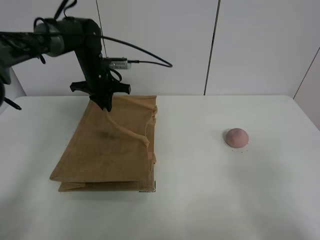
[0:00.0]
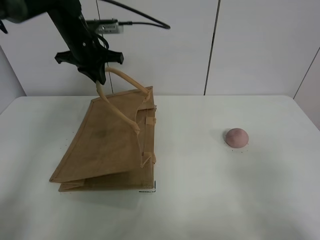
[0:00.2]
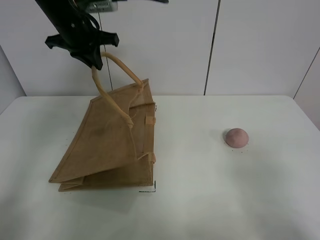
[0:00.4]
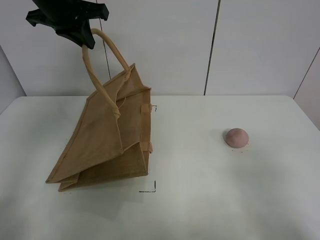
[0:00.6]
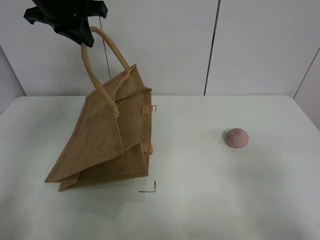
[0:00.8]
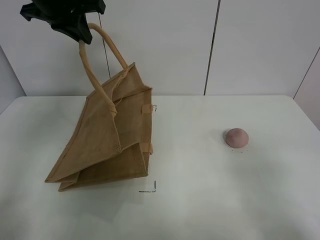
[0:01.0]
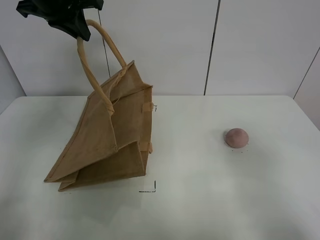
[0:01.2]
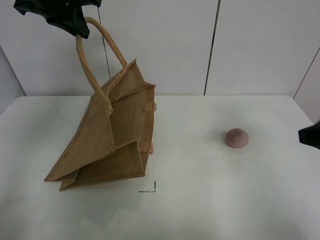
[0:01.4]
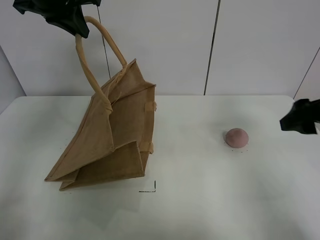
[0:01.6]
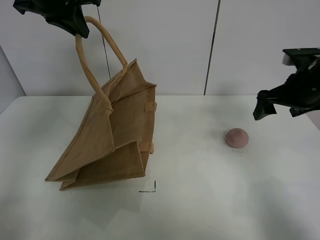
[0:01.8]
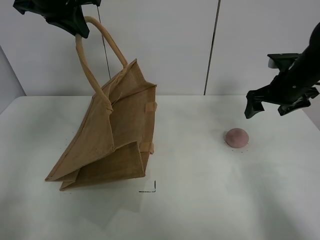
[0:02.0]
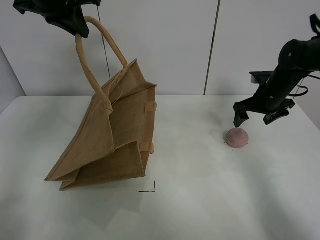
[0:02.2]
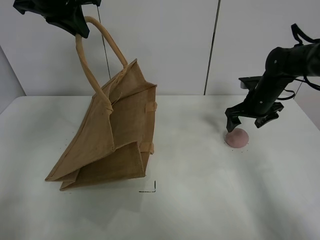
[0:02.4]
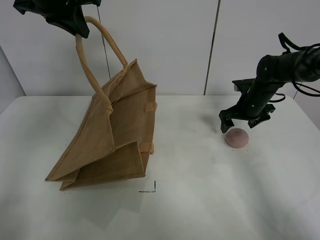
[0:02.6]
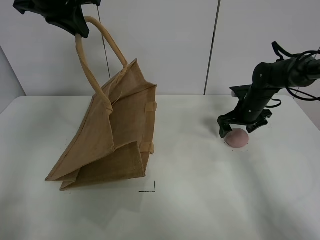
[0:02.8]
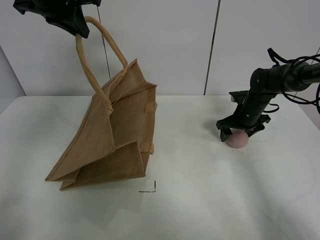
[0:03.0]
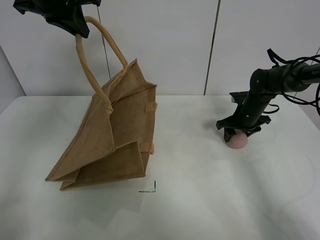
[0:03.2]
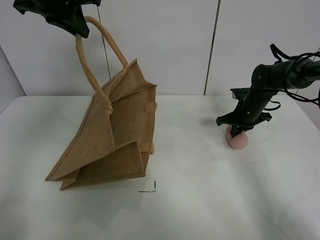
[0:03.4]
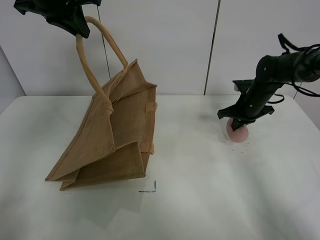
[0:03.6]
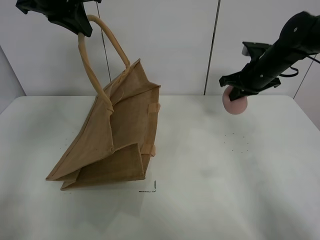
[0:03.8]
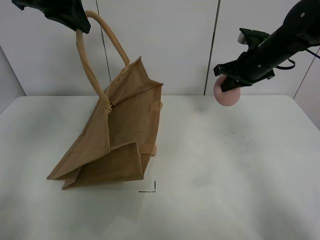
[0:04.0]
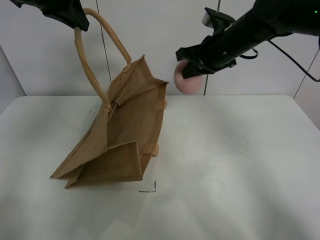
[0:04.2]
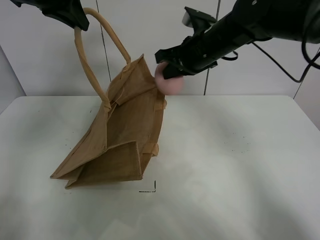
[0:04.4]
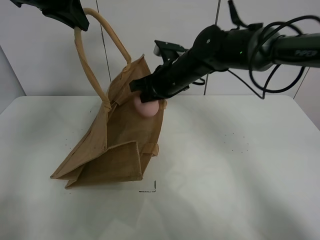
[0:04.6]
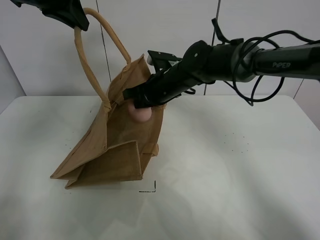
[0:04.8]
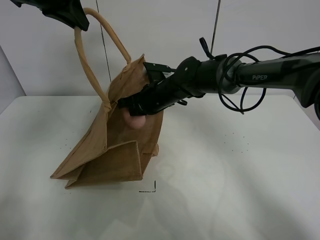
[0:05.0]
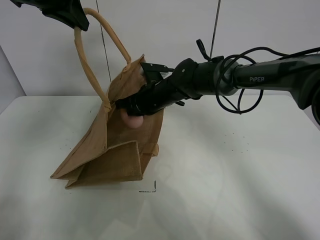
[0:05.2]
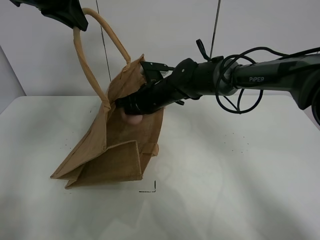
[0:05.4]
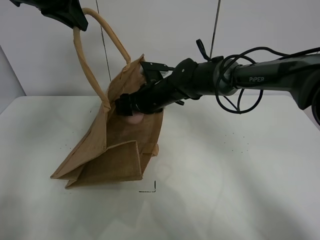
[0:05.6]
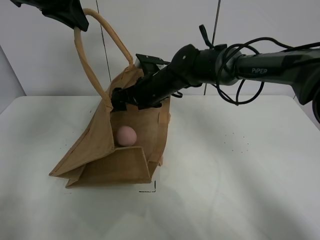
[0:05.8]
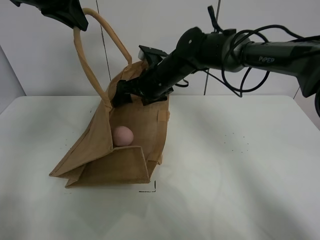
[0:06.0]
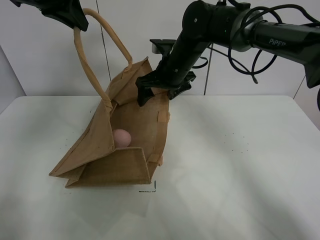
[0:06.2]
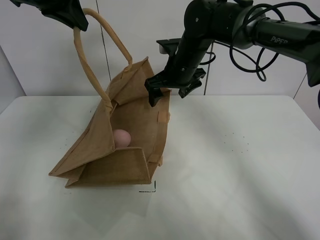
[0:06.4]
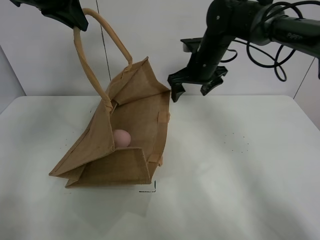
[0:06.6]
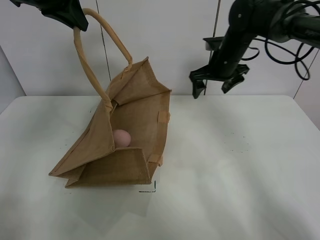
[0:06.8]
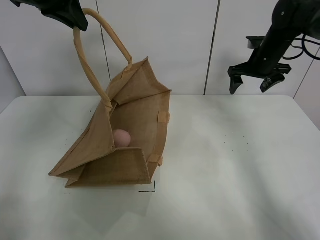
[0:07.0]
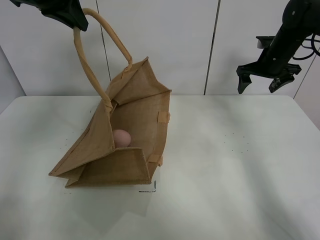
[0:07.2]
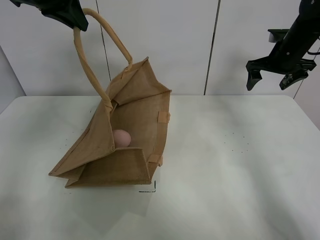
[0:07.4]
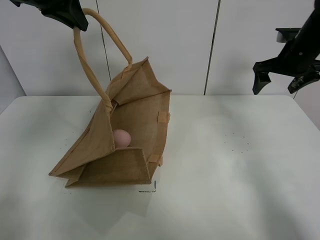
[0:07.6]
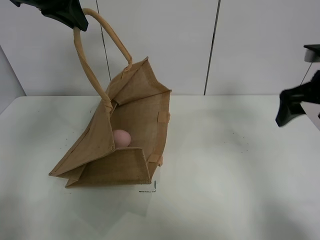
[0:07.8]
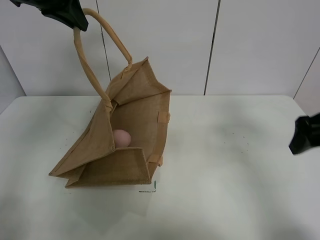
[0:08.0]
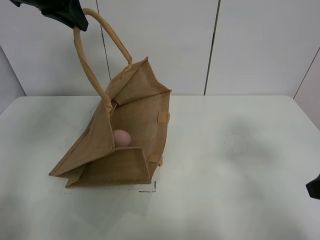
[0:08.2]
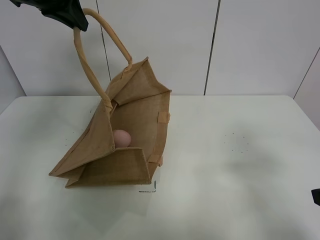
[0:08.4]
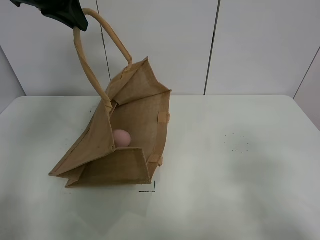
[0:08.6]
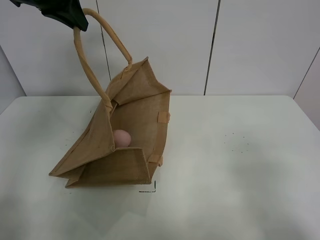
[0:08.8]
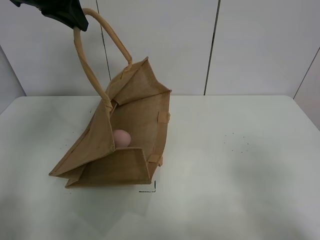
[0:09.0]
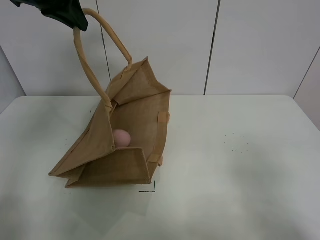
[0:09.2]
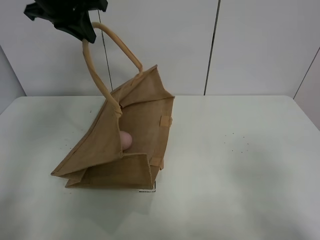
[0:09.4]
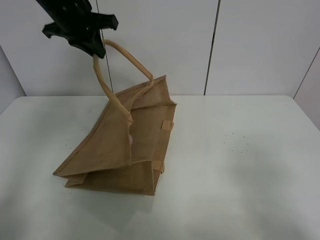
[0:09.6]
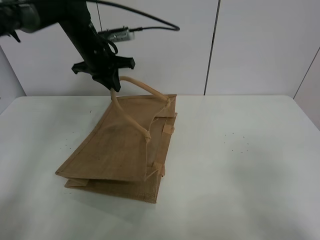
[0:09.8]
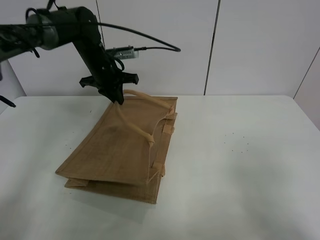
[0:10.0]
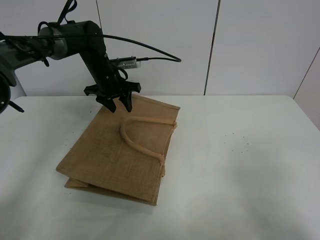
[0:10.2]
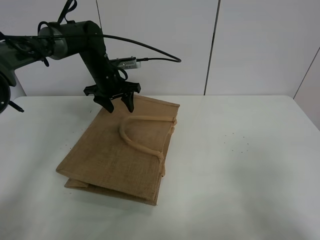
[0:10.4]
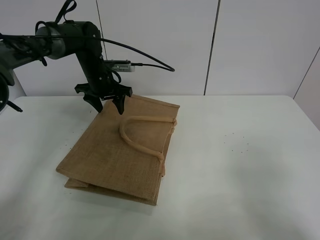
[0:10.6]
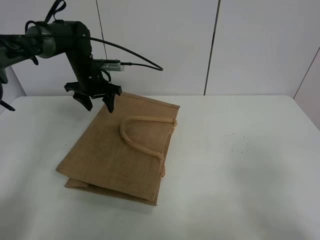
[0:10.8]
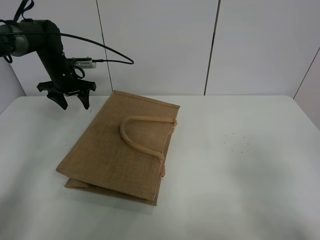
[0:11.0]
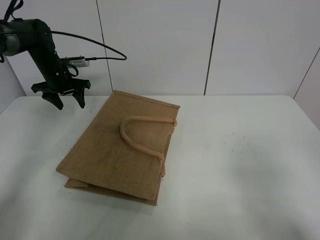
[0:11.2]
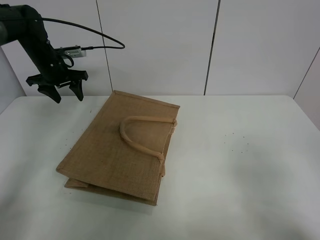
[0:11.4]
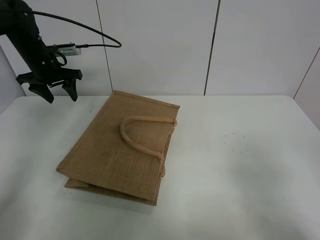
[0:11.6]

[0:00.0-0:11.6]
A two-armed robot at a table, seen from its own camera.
Task of the whole recording: open the brown linen bag and put the peach in the bag.
Step, 0:01.2 to 0:03.2: Grasp the peach with right gripper.
Step, 0:03.4 to 0:06.6: Place the peach in the handbag with right gripper.
Step, 0:06.8 to 0:10.8: Put down the handbag with left grippe.
0:00.0 to 0:01.4: The right gripper shifts approximately 15 cm forward. Meanwhile the left gripper travels upward and backward by roughly 20 cm.
0:01.4 to 0:02.8: The right gripper travels forward and downward by some 35 cm.
0:02.8 to 0:04.4: The right gripper is displaced to the left and upward by roughly 25 cm, and closes up.
0:04.4 to 0:05.8: The right gripper heads downward and to the left, covering some 10 cm, and opens.
0:05.8 to 0:07.2: The right gripper heads to the right, covering roughly 30 cm.
0:07.2 to 0:08.8: The right gripper goes some 40 cm backward.
0:08.8 to 0:10.2: The left gripper is displaced downward and forward by some 25 cm, and opens its fingers.
0:10.2 to 0:11.6: The left gripper heads to the left, covering roughly 15 cm.

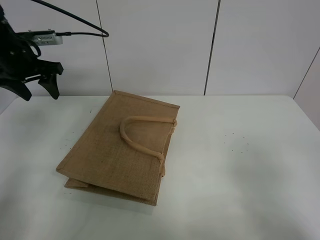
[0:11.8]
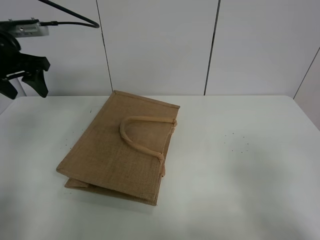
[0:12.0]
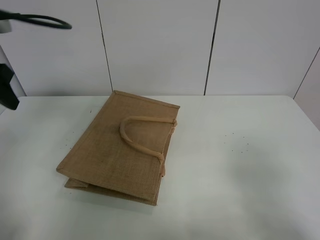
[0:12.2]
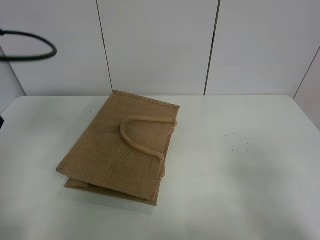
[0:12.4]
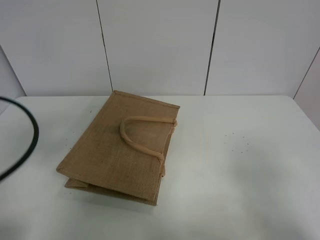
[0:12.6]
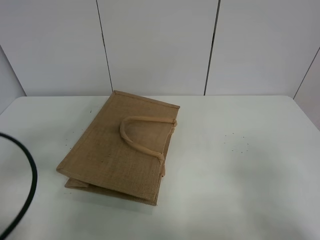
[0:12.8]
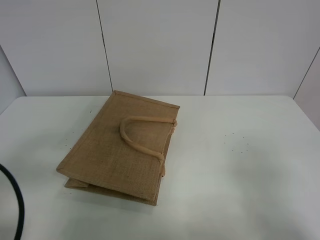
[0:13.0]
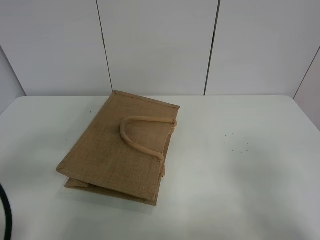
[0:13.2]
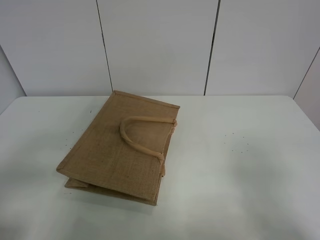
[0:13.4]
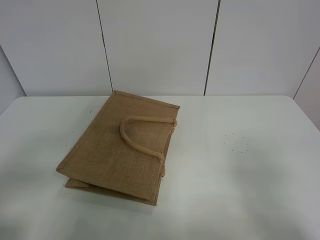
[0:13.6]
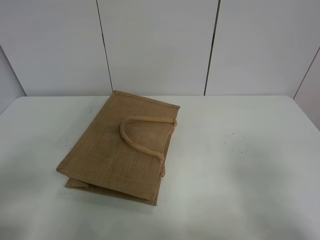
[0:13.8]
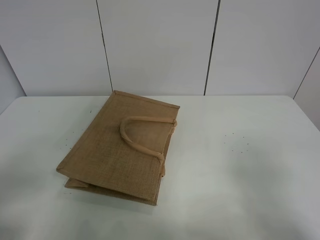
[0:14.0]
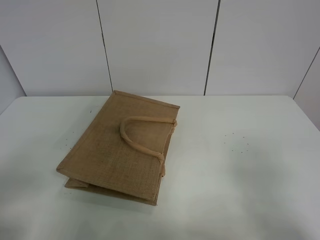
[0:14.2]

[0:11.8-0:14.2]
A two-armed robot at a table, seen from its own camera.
Task of the whole recording: open the brown linen bag and put the peach in the bag.
0:11.8 to 0:13.0: The left gripper travels backward by about 30 cm.
0:13.0 to 0:14.2: The left gripper is displaced backward by approximately 5 cm.
